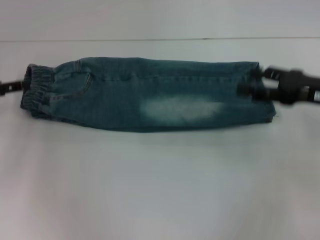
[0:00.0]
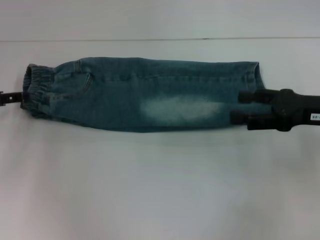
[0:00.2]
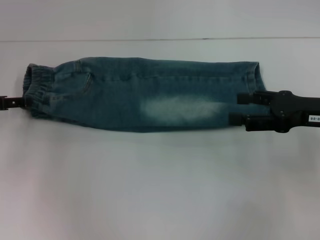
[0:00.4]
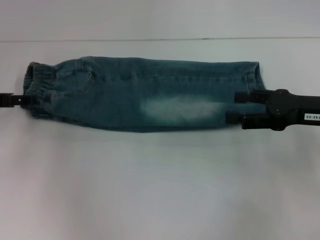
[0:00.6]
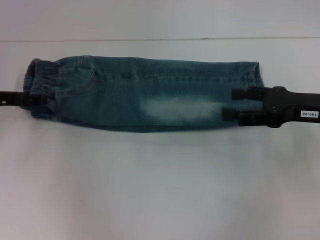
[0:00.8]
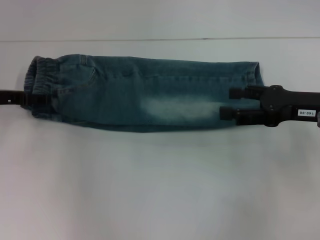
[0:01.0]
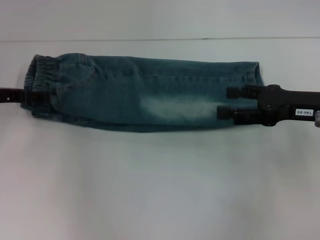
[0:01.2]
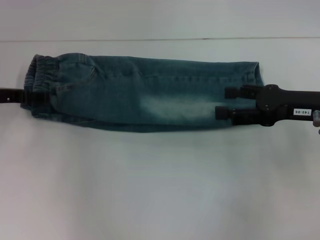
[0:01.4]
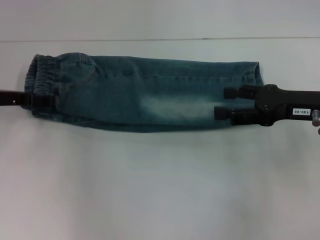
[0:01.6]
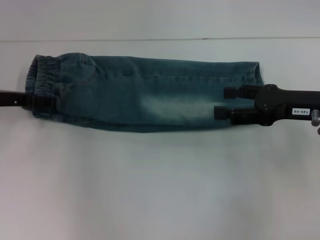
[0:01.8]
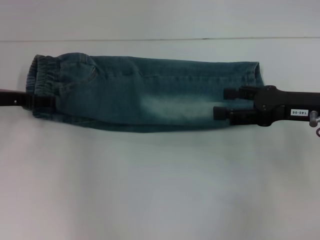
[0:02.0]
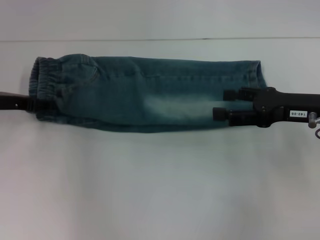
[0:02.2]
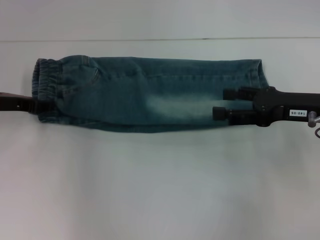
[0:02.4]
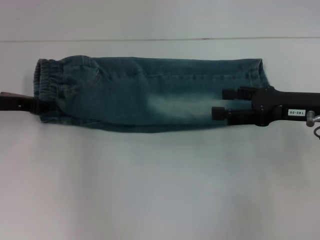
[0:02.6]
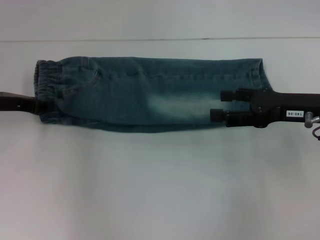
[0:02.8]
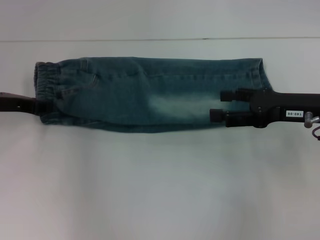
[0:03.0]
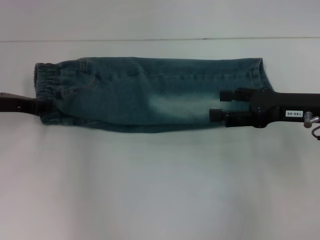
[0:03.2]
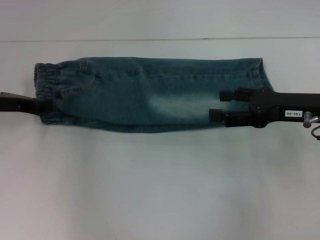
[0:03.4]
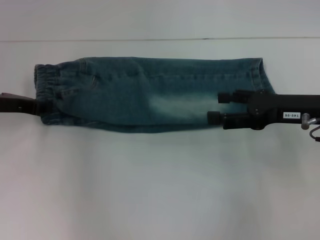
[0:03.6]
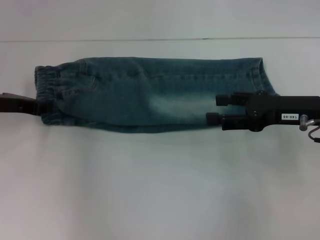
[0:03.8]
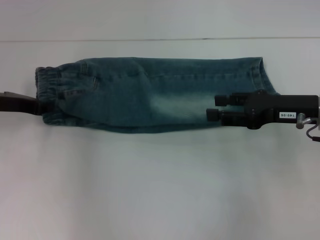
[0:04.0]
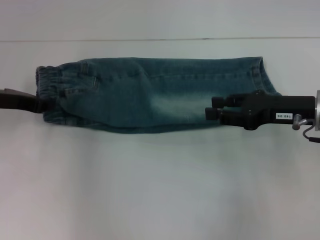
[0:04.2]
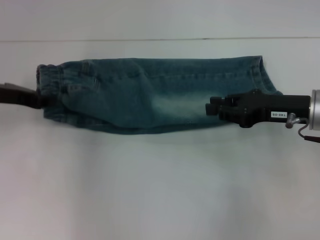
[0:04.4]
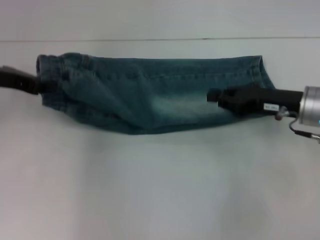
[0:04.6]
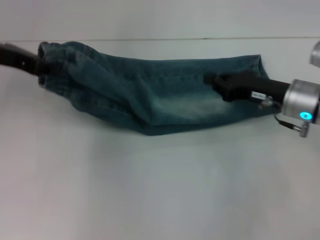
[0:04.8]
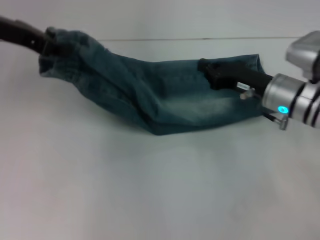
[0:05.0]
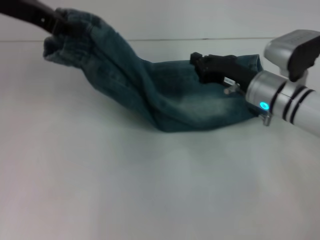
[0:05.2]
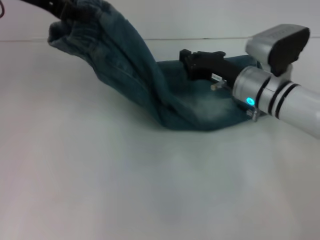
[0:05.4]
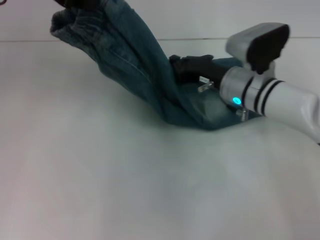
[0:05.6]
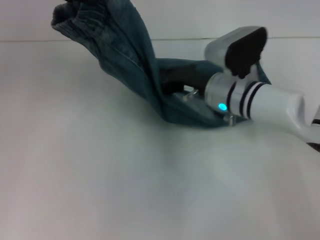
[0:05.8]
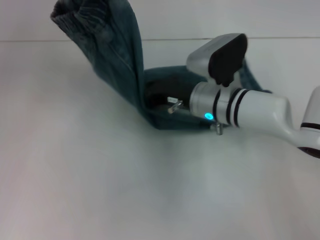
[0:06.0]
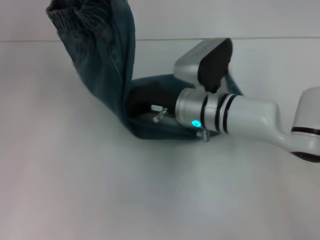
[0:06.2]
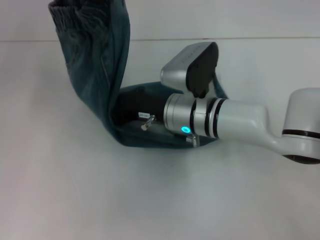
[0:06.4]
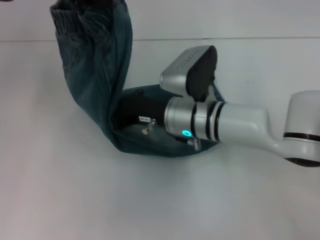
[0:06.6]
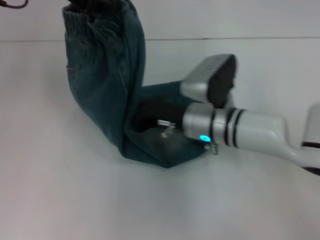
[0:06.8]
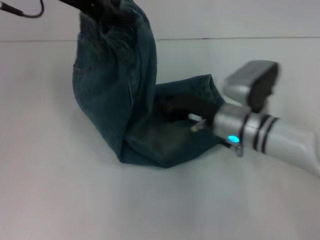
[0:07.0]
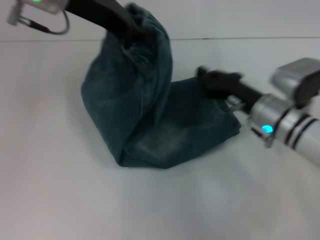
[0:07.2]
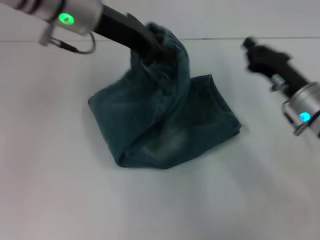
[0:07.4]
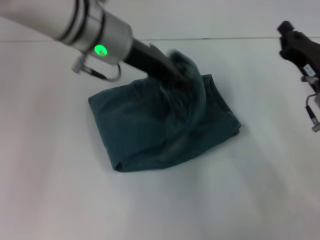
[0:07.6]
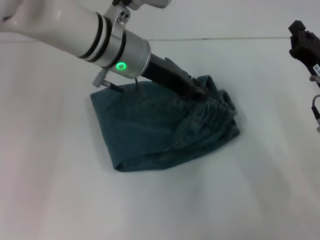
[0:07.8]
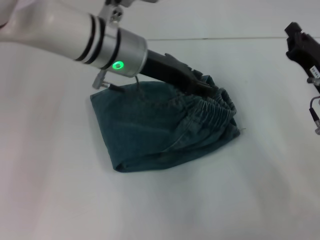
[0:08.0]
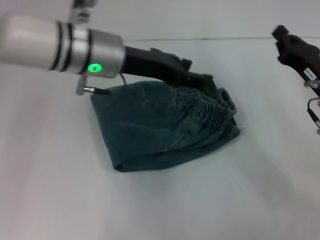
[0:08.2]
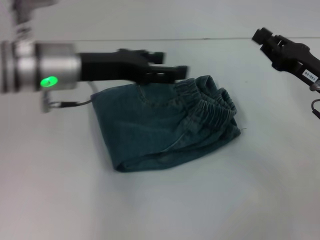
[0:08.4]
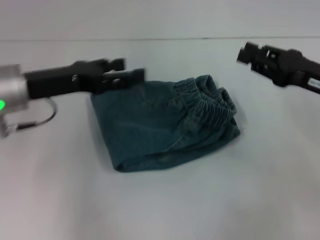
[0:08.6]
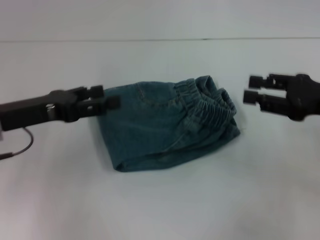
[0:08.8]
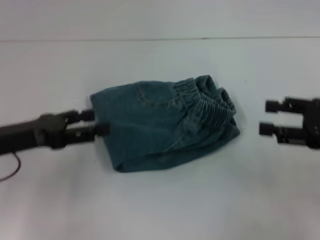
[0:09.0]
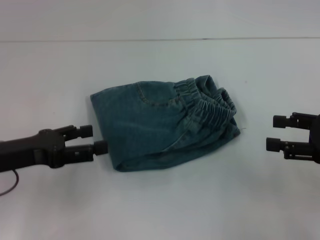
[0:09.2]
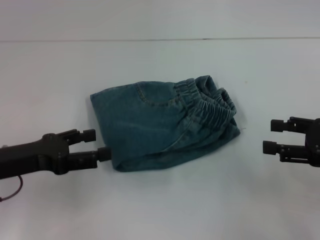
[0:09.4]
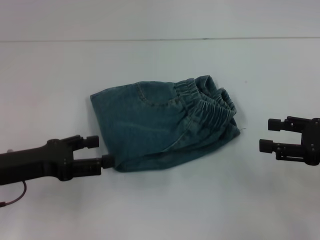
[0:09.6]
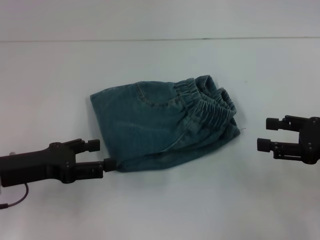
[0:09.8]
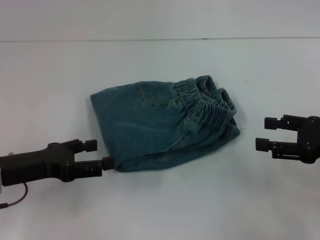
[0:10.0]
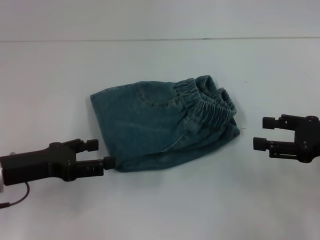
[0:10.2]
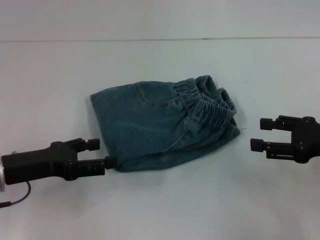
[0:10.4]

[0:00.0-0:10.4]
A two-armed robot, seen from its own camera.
Step, 0:01.2 to 0:06.6: Press the middle of the pants with your right hand.
Step, 0:07.0 to 0:07.8: Fold to the right with your left hand.
0:00.0 to 0:01.4: The left gripper moves roughly 5 cm.
0:01.4 to 0:03.0: The left gripper closes.
0:03.0 to 0:04.4: The right gripper closes its fingers.
0:04.4 to 0:06.0: The right gripper shifts approximately 15 cm to the left, and closes, while the left gripper is displaced upward and to the right by approximately 20 cm.
0:06.0 to 0:07.4: The right gripper heads to the right, covering approximately 15 cm. The left gripper moves to the right and downward, about 10 cm.
0:07.4 to 0:09.0: The right gripper shifts approximately 15 cm to the right, upward and backward, and opens; the left gripper heads to the left, downward and backward, covering approximately 25 cm, and opens its fingers.
0:09.0 to 0:10.4: There are only small adjustments of the grippers.
